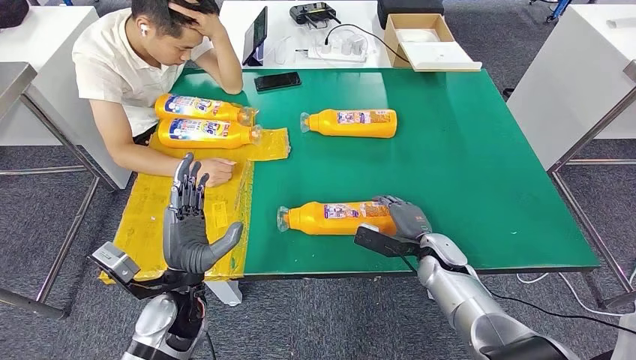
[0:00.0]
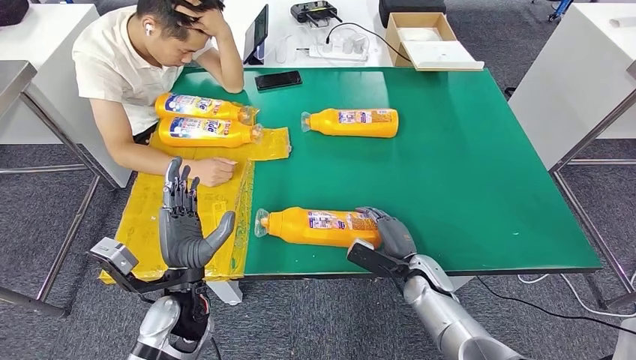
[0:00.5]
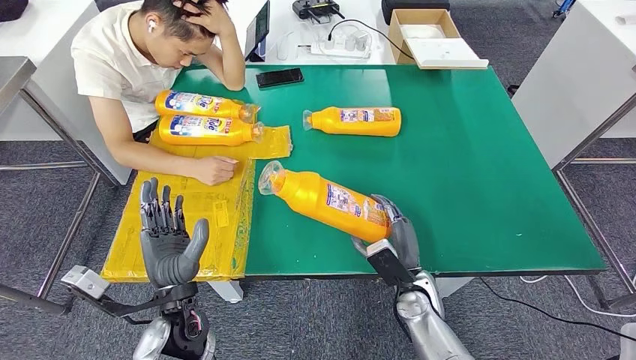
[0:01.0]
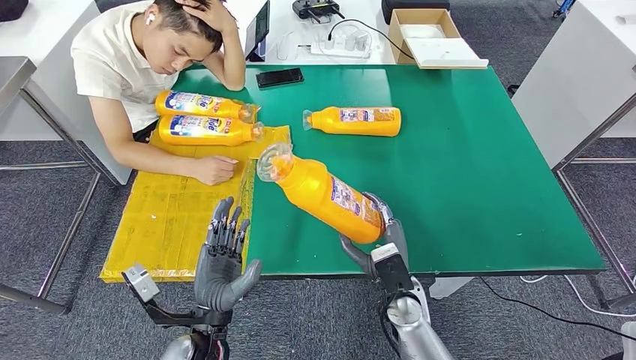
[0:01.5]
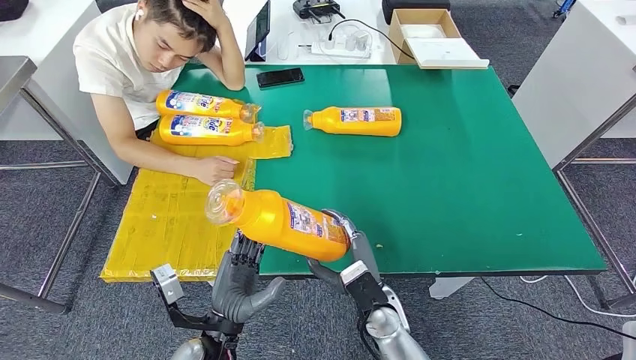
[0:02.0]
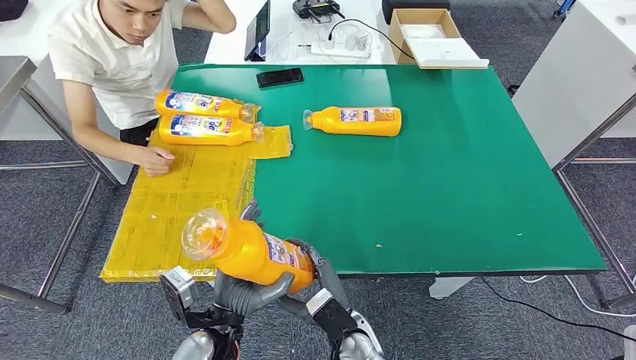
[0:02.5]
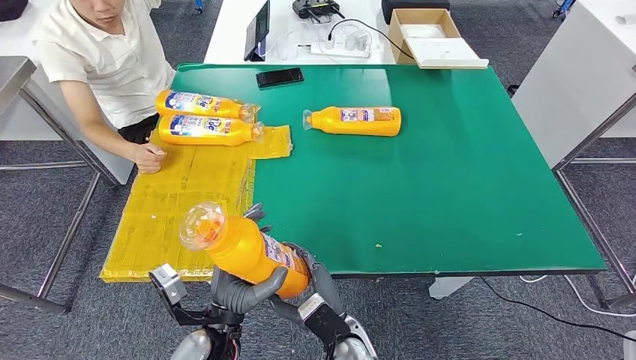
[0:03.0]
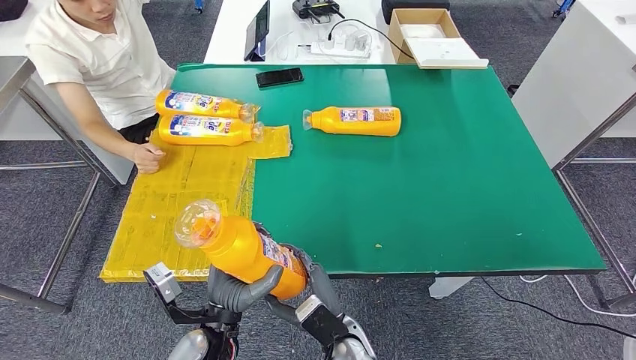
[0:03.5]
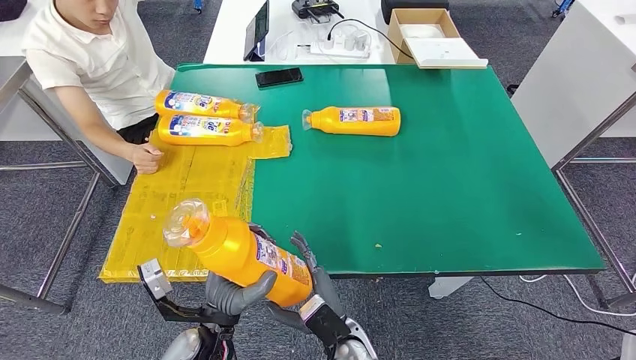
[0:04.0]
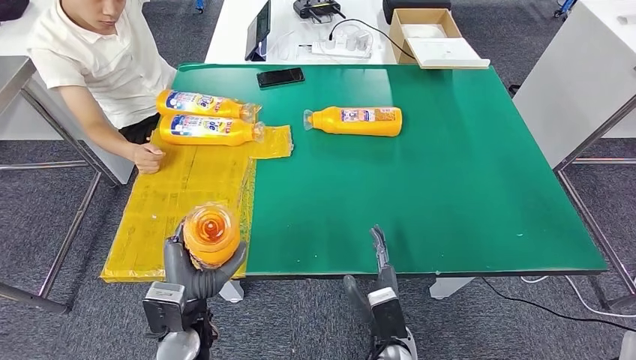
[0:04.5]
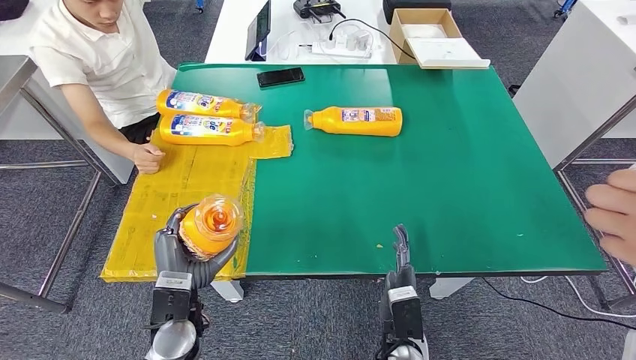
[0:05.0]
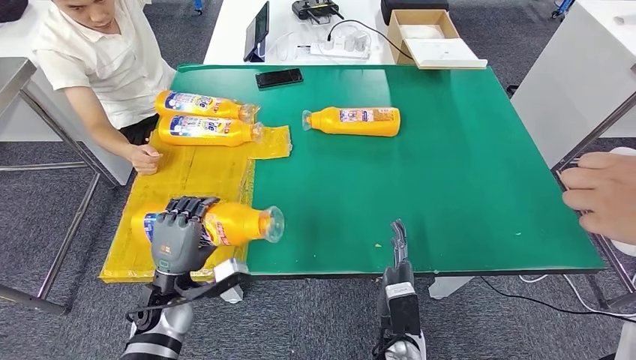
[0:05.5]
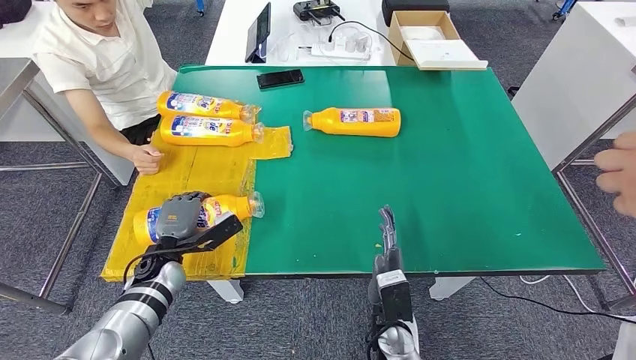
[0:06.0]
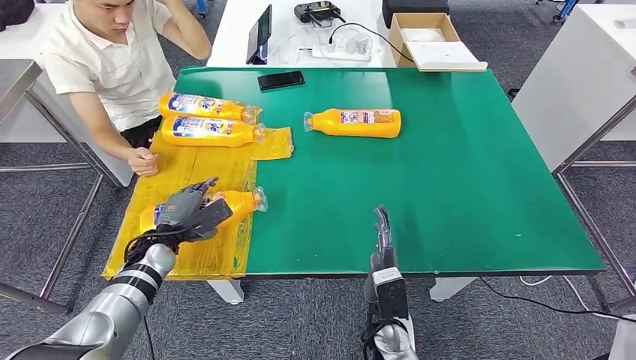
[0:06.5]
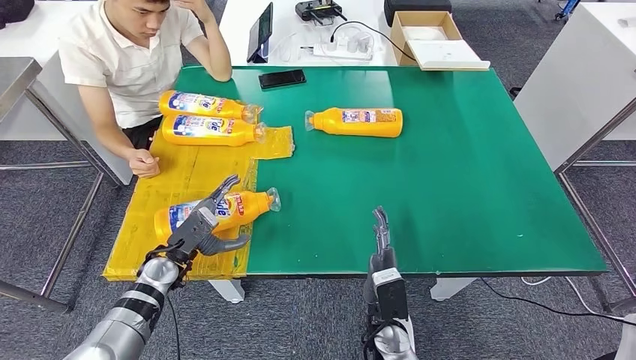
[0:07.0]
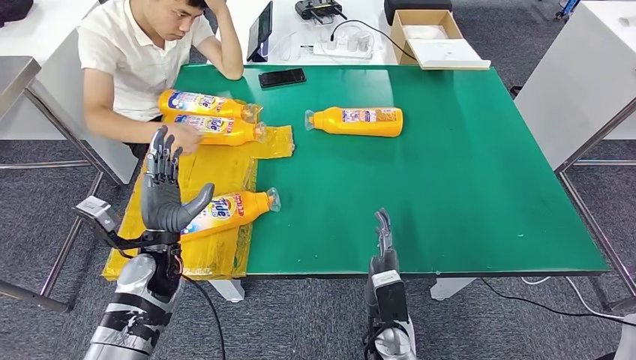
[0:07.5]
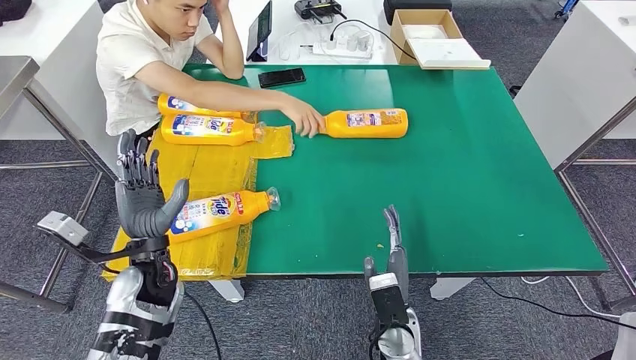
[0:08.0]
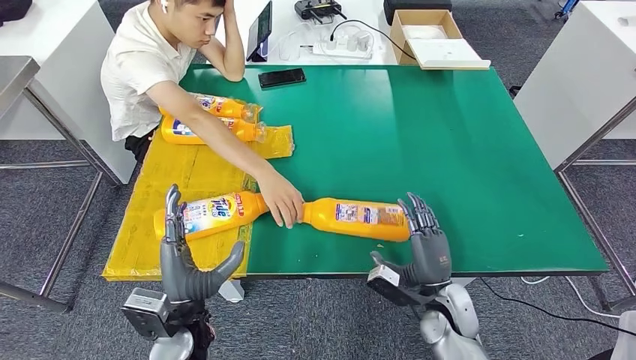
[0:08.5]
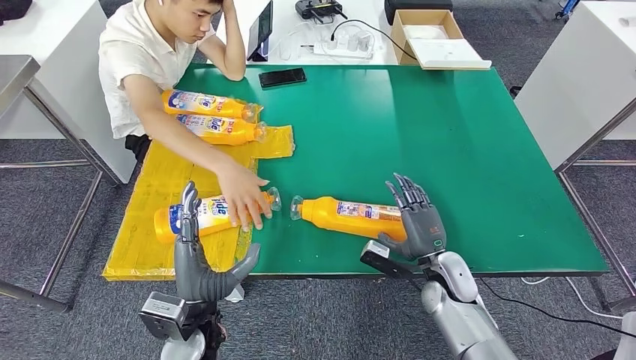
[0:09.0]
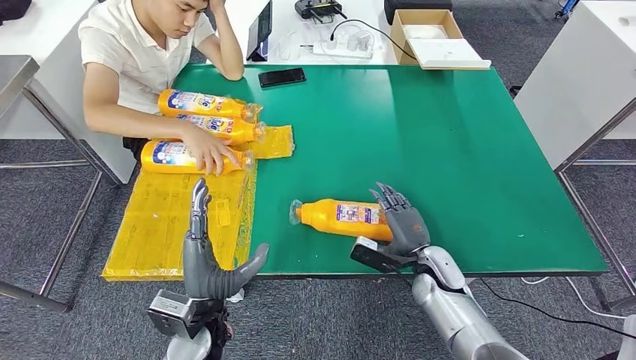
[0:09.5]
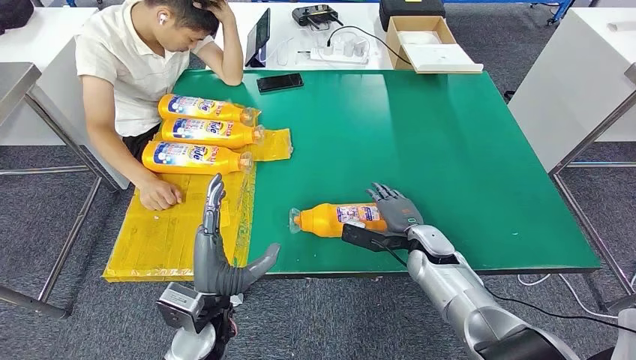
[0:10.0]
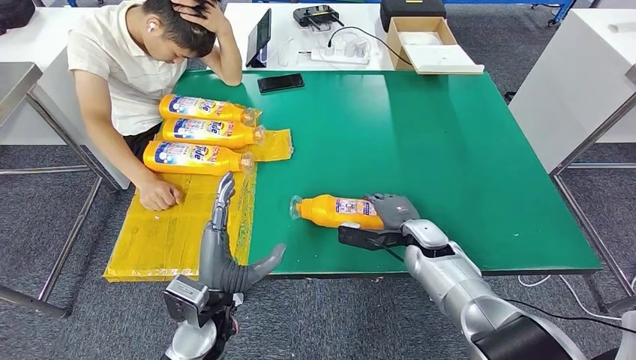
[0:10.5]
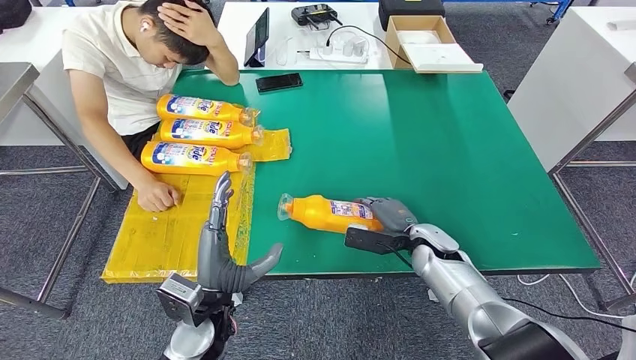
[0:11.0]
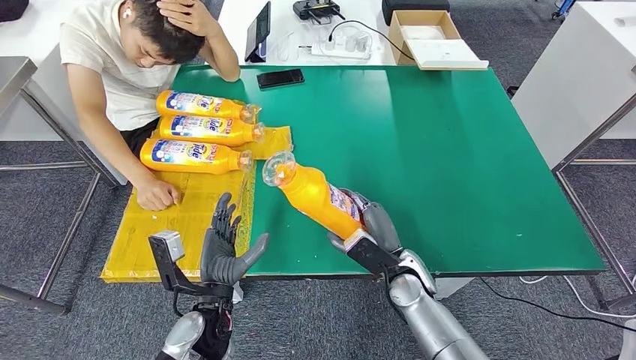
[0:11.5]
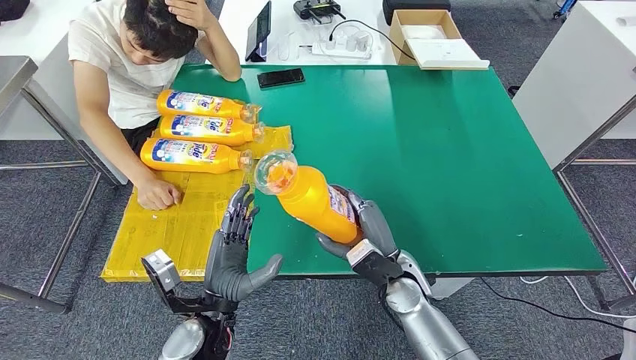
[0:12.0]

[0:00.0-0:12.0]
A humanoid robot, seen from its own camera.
Step, 0:00.0 to 0:02.0: Pick up the fast-moving consumer goods bottle from the table.
Step, 0:02.5 to 0:08.0: Flip the fast-moving consumer goods bottle to the front side.
0:02.0 to 0:04.0: The right hand heads to the left and backward, covering roughly 10 cm.

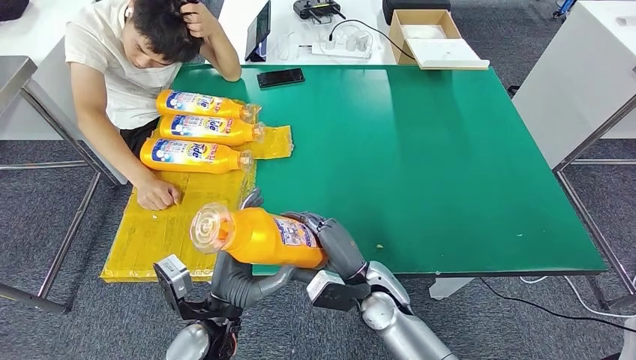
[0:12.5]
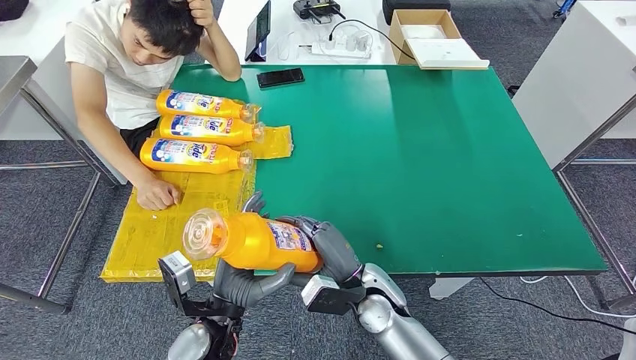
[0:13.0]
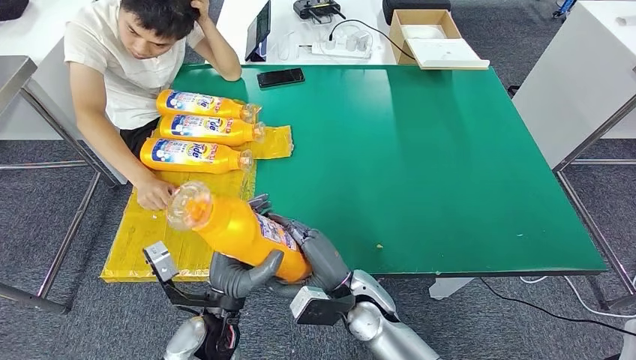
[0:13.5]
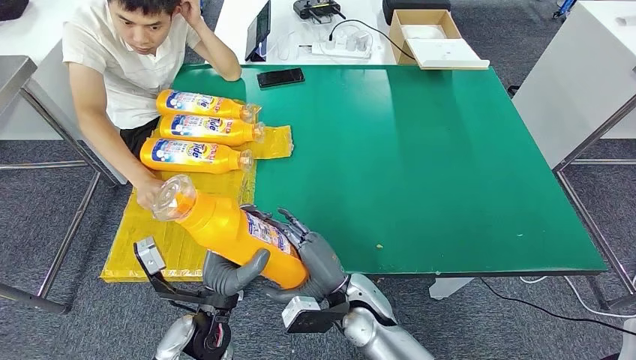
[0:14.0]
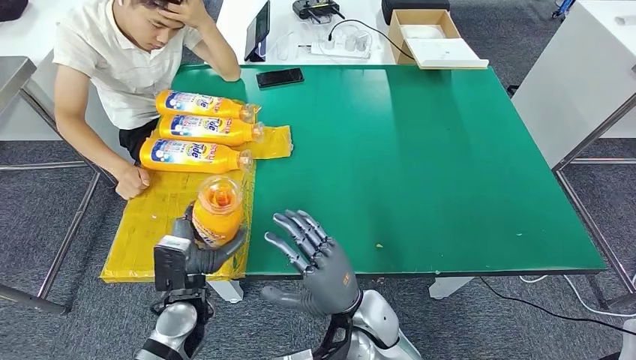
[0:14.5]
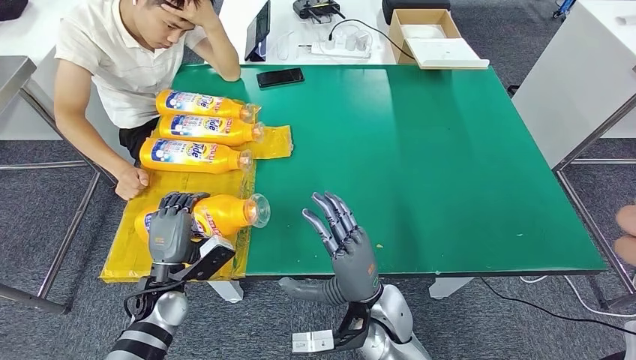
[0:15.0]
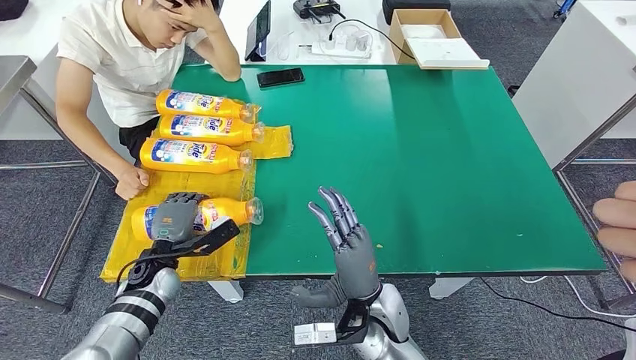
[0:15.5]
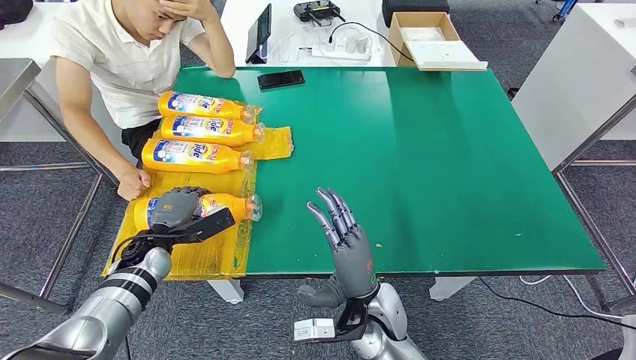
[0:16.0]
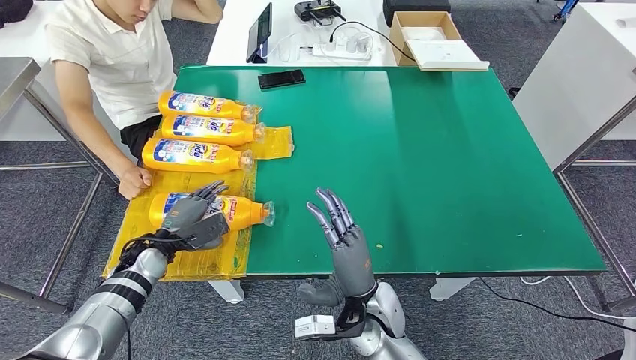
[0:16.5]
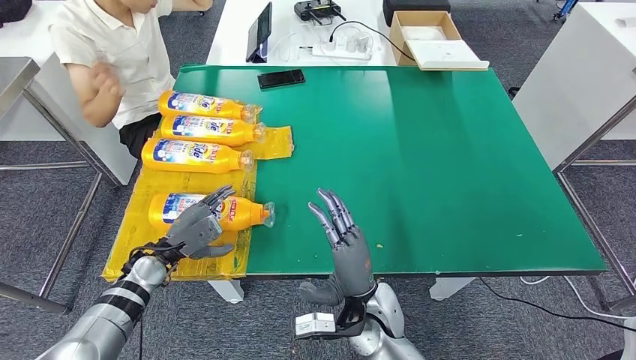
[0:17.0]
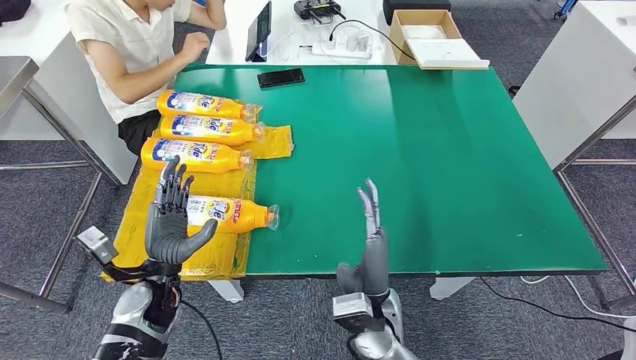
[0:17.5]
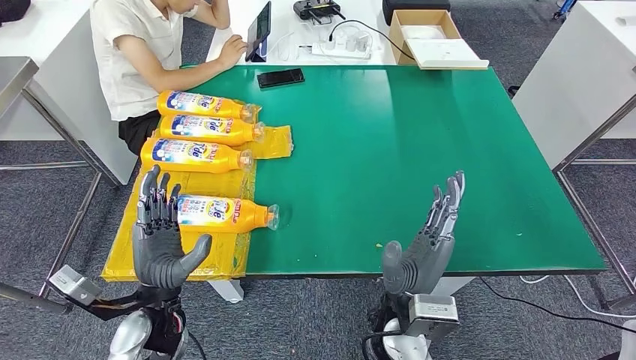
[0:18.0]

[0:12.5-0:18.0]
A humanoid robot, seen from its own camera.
Step, 0:13.0 to 0:18.0: Flip the fast-moving consumer goods bottle to the front side.
0:12.5 to 0:14.5: The left hand travels to the left by approximately 5 cm. The right hand ends up about 5 cm from where it was.
